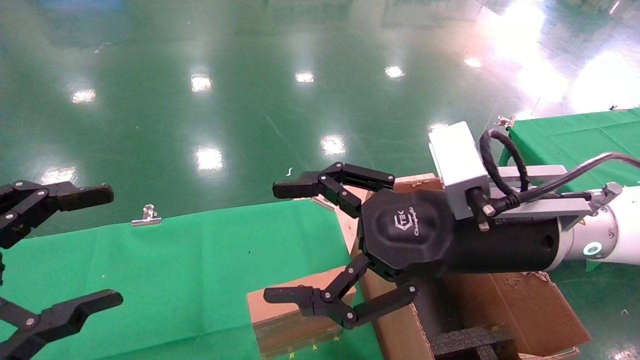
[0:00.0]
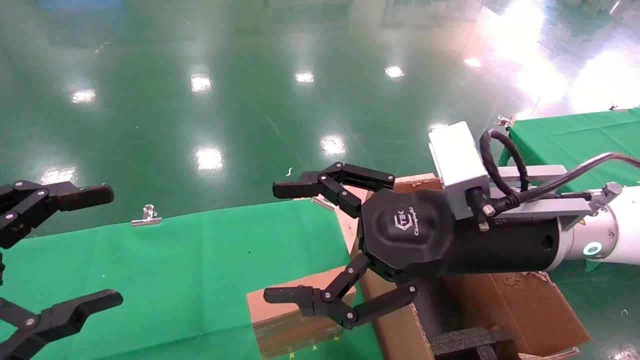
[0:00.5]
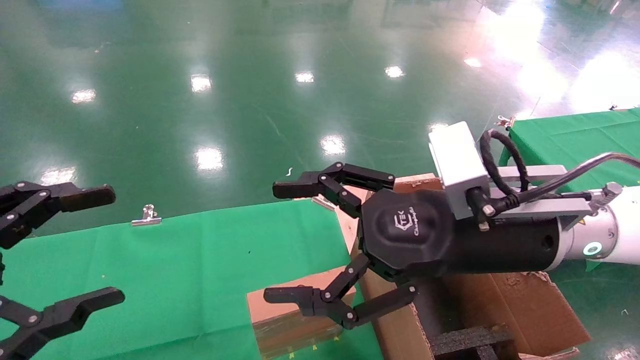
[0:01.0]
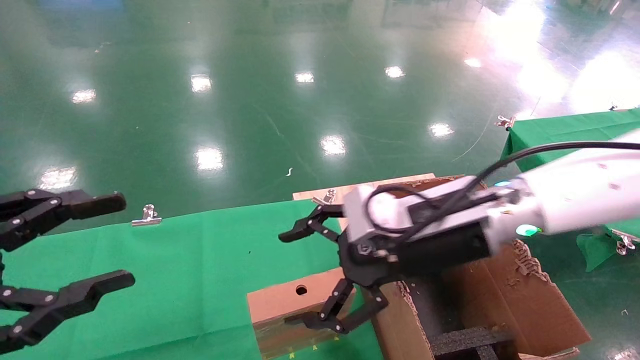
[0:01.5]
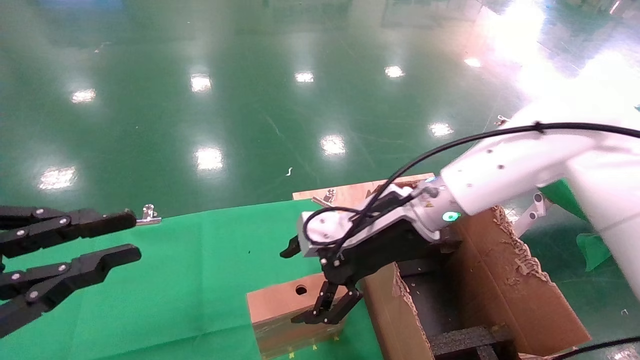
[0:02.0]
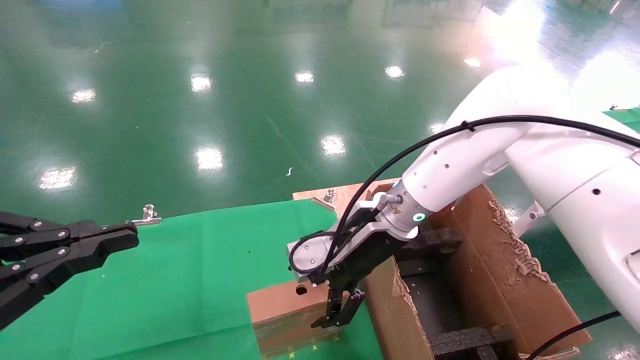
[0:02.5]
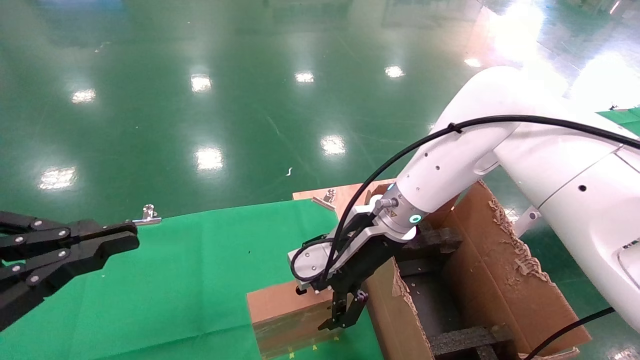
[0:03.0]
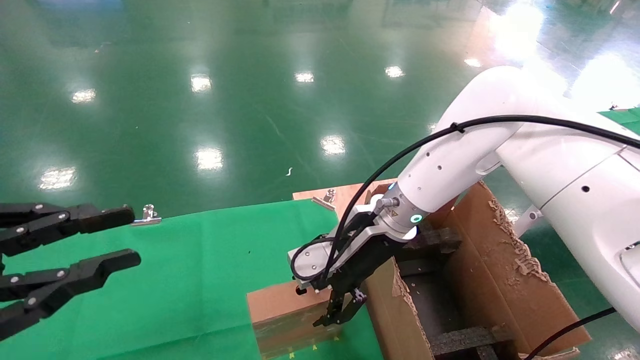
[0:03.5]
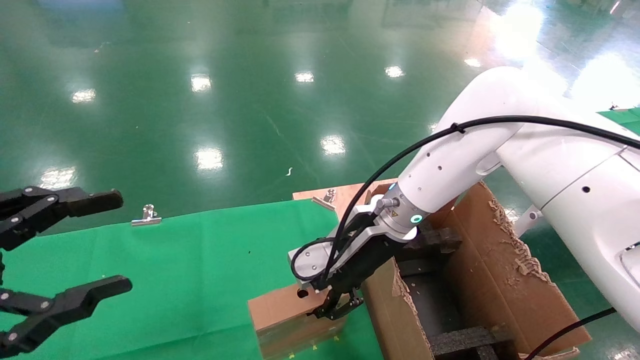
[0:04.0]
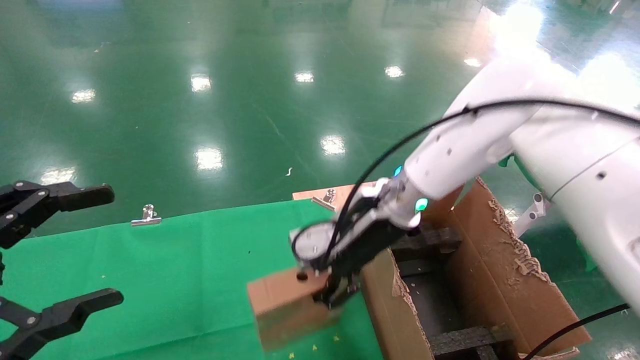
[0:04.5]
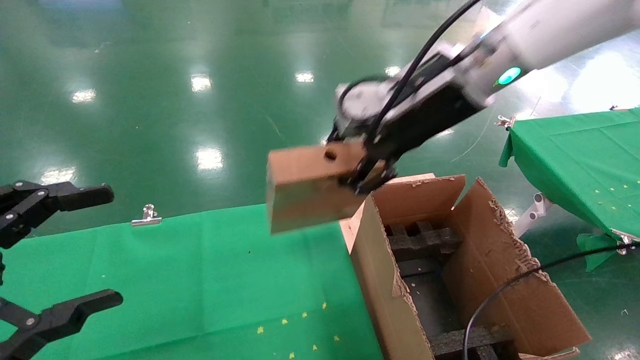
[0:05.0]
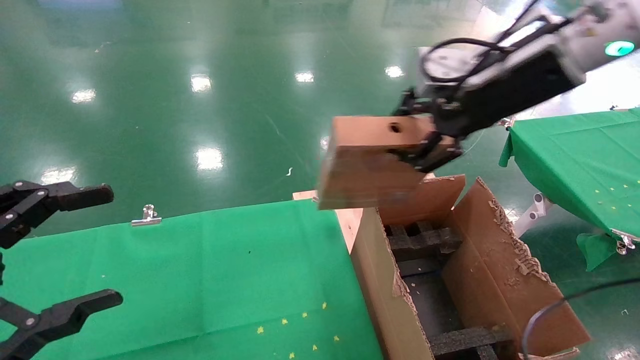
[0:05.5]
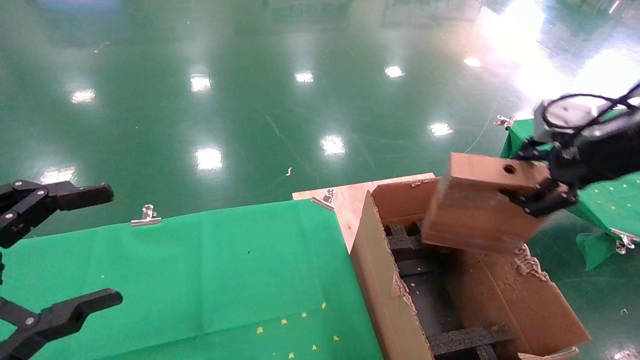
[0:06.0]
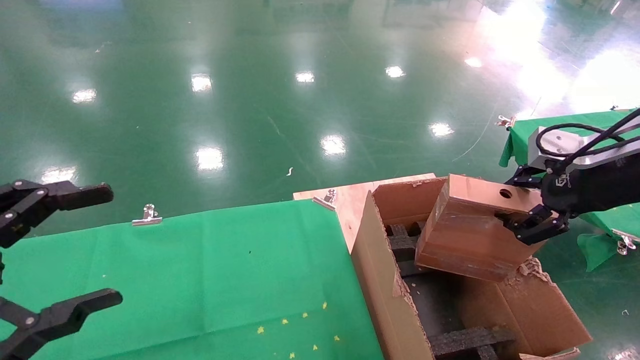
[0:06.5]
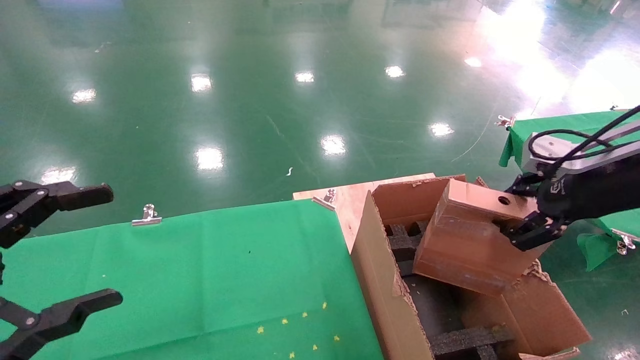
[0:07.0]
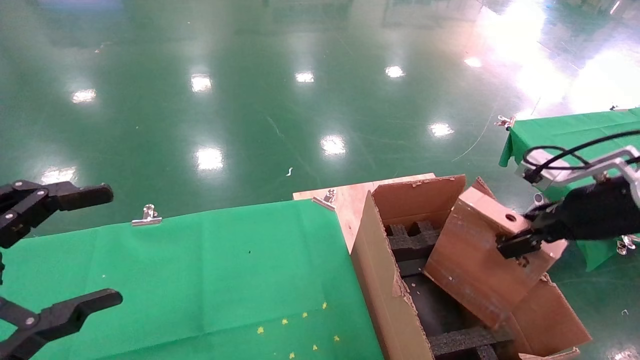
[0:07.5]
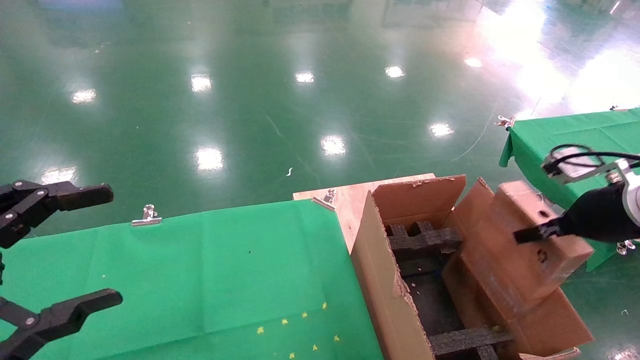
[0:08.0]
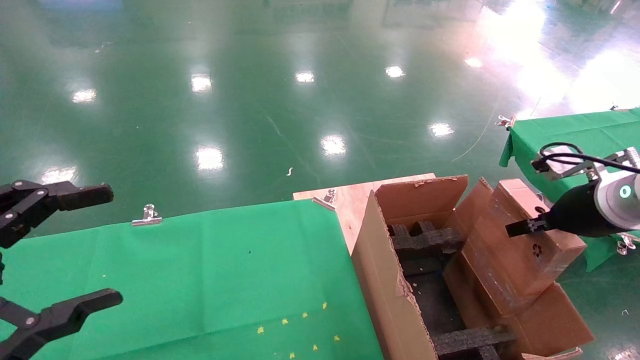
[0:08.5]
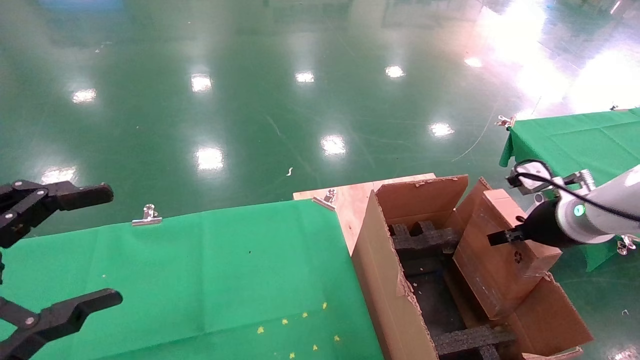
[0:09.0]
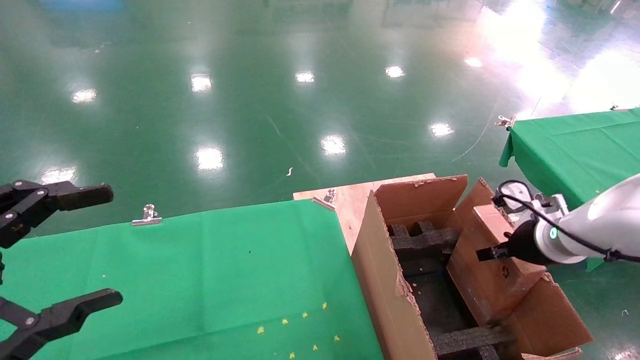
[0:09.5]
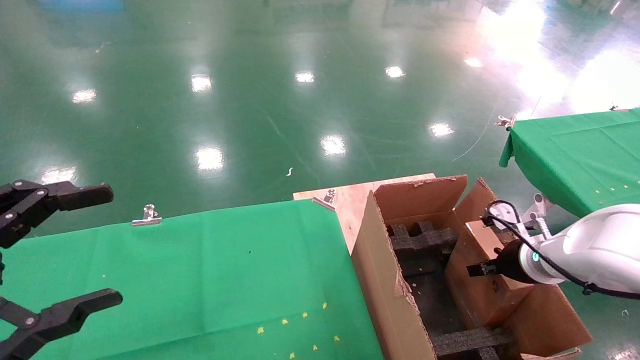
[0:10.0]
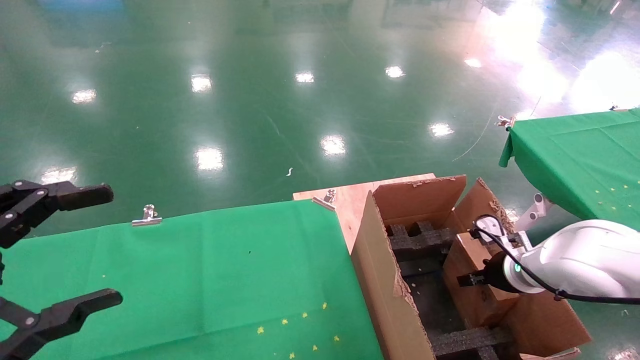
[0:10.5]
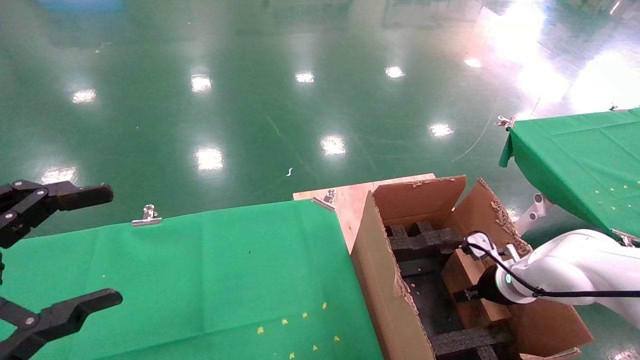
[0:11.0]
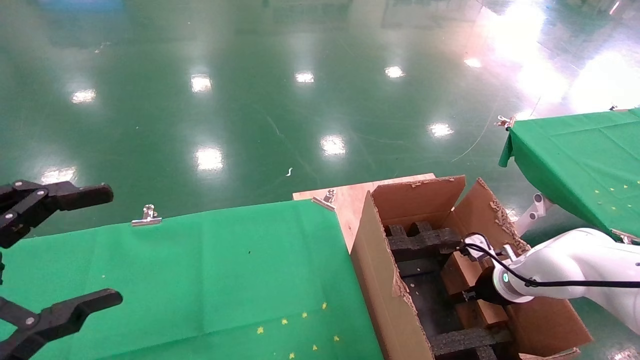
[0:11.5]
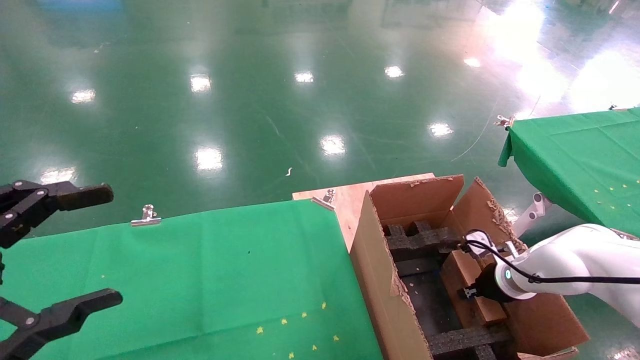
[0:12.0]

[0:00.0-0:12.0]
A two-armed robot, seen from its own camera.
Task of the whole recording: using a robotic arm to pick up a cardboard box and palace it the carton.
Step, 0:01.0 to 0:04.0: Pick up the mouse and the power cord paper box.
0:00.0 to 0:02.0: The left gripper closes, while the right gripper goes approximately 15 cm forward and to the left.
0:02.0 to 0:04.0: The right gripper closes.
0:04.0 to 0:06.0: The left gripper opens up, while the right gripper shifts roughly 35 cm to the right, upward and backward.
0:06.0 to 0:08.0: The right gripper moves downward, some 10 cm.
0:08.0 to 0:10.0: The right gripper shifts some 15 cm downward and forward.
0:10.0 to 0:12.0: The right gripper is displaced downward by approximately 5 cm.

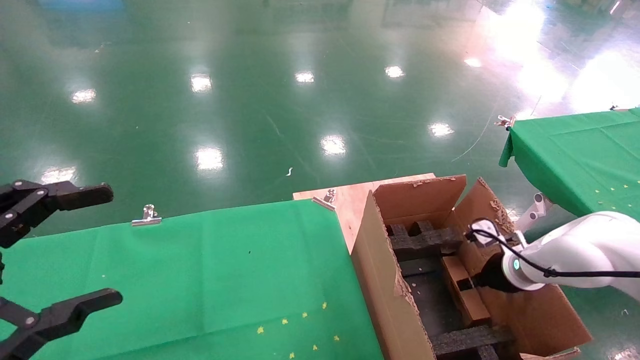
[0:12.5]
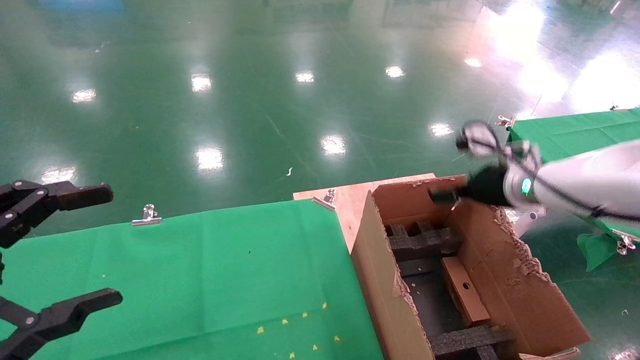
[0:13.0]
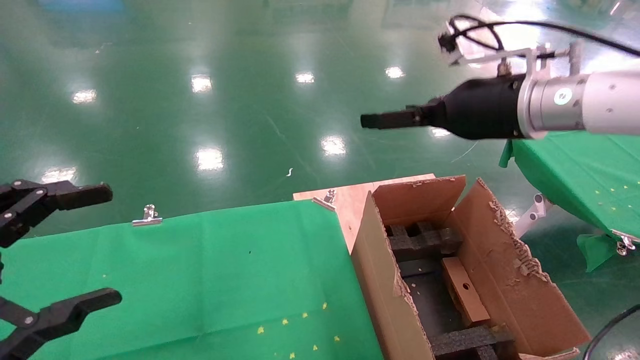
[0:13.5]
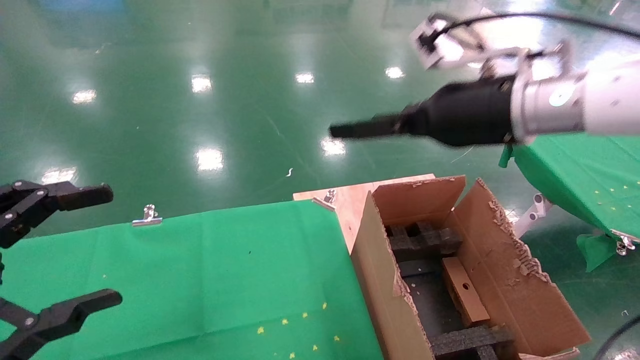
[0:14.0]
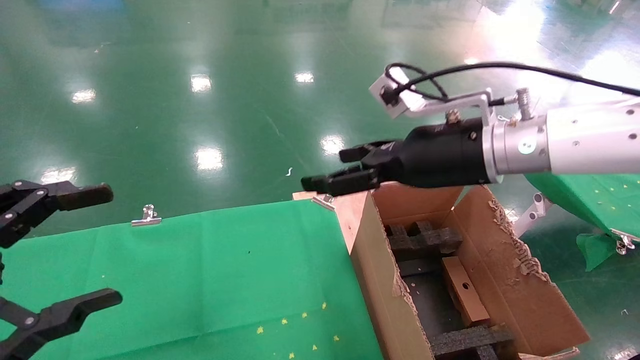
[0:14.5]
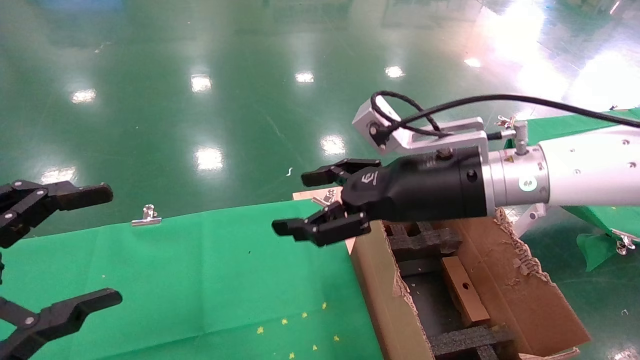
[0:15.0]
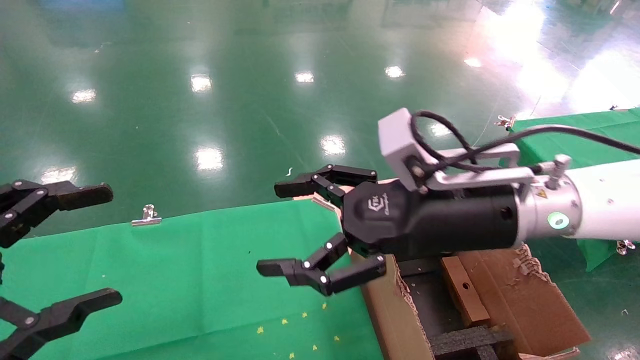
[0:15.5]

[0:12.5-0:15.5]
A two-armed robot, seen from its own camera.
Task of the whole recording: using a robotic arm to pick up a cardboard box and palace it the carton.
0:12.5 to 0:14.0: The right gripper heads upward and to the left, covering about 30 cm, and opens.
0:14.0 to 0:15.5: The right gripper moves backward, to the left and downward, some 10 cm.

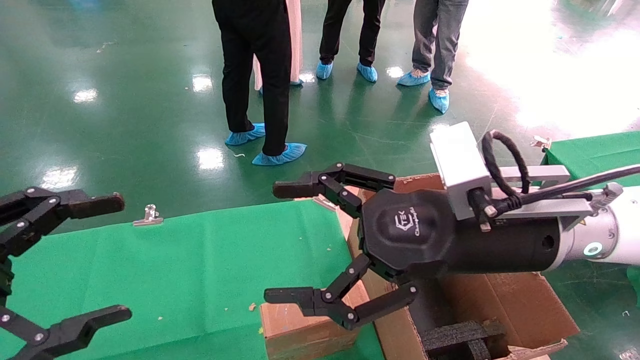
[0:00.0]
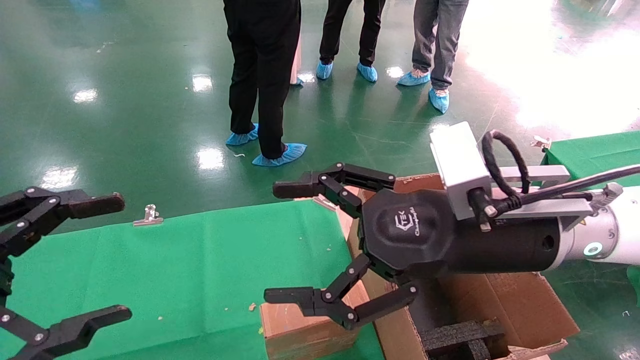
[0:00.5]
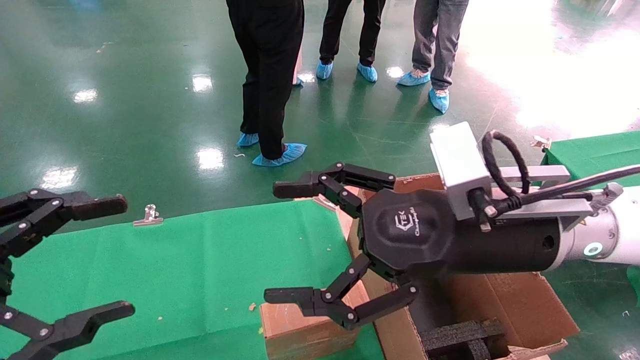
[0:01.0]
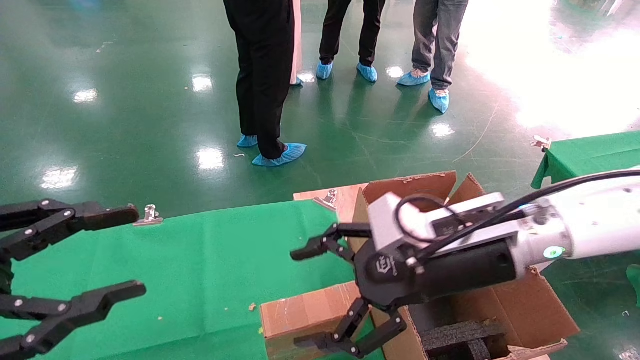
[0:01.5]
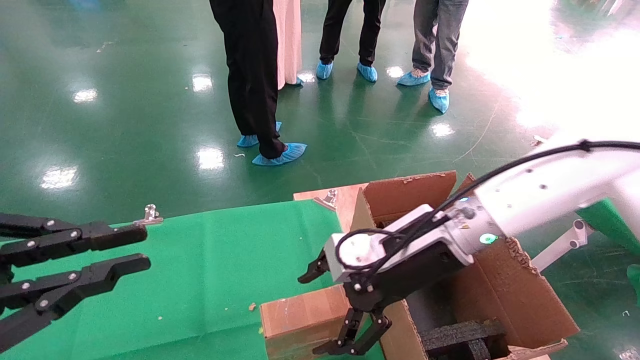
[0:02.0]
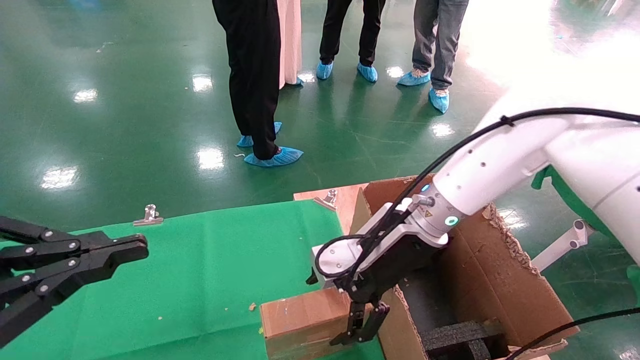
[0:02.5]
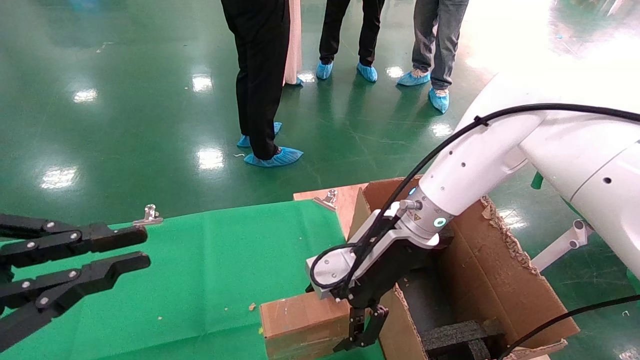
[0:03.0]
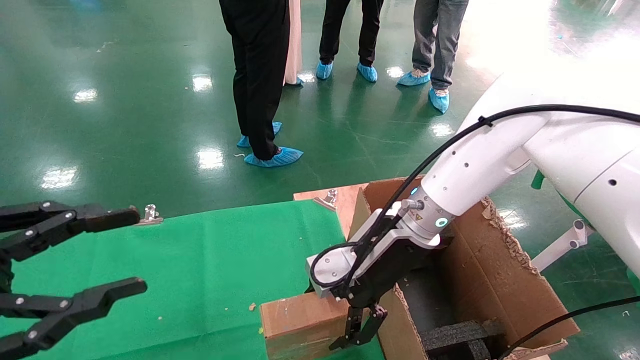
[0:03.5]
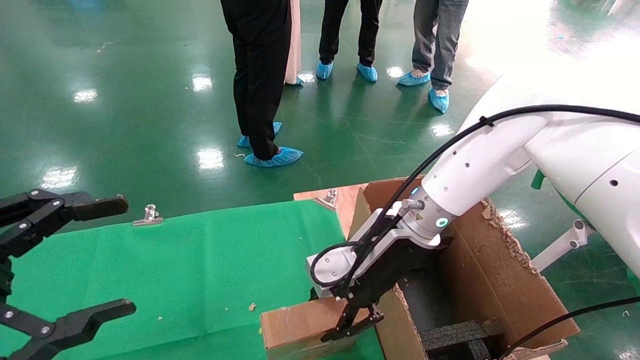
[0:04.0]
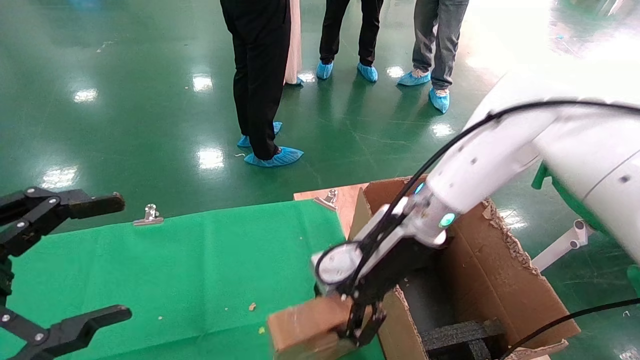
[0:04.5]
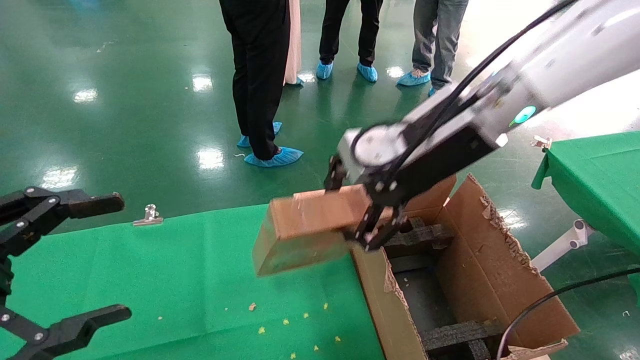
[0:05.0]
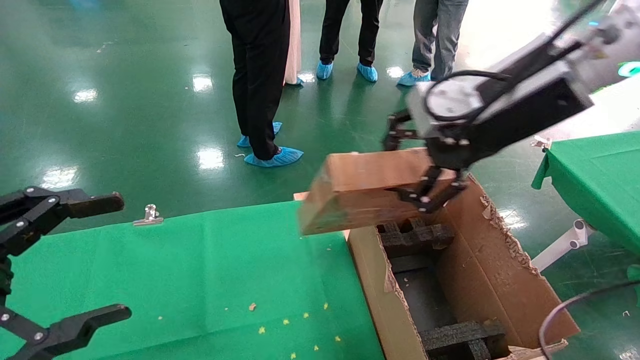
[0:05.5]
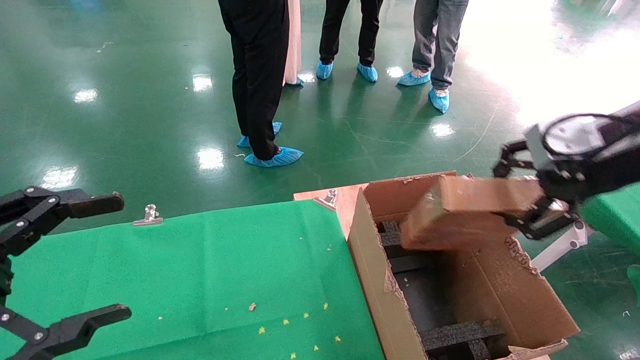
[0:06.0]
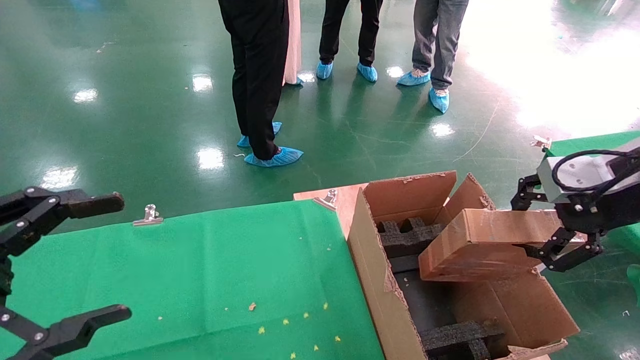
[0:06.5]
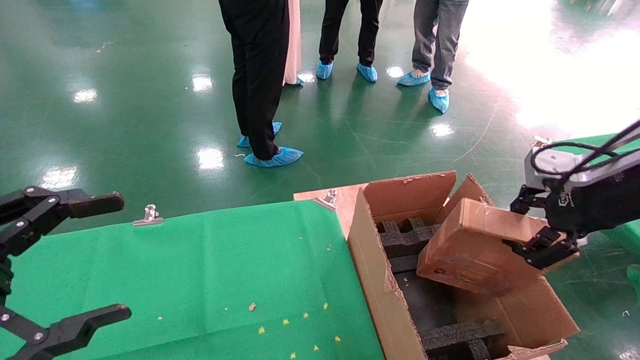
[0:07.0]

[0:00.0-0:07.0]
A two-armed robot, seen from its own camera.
Task of the whole recording: using a robotic arm to pick up a cardboard box and palace it the carton.
Step, 0:01.5 to 0:04.0: Pick up the mouse and the power cord paper box.
0:00.0 to 0:02.0: The right gripper moves forward and downward, some 10 cm. The left gripper closes up.
0:03.5 to 0:05.0: The left gripper opens up, while the right gripper moves upward, roughly 15 cm, and closes.
0:05.0 to 0:07.0: The right gripper shifts some 25 cm to the right.
